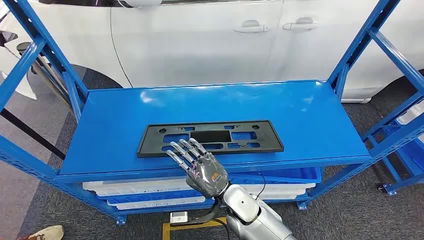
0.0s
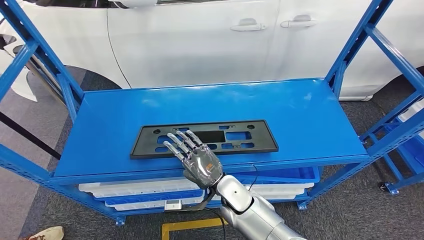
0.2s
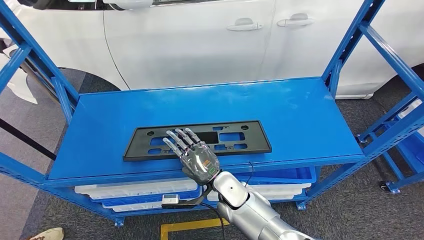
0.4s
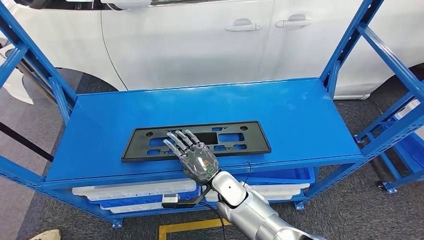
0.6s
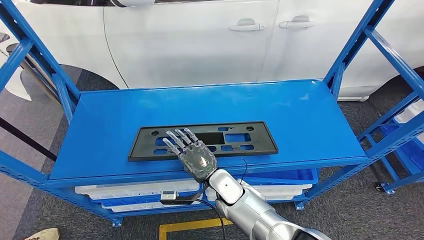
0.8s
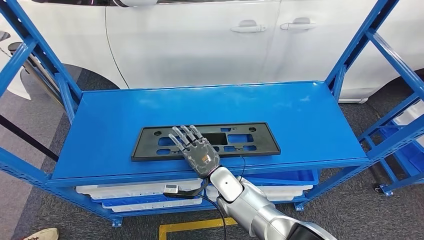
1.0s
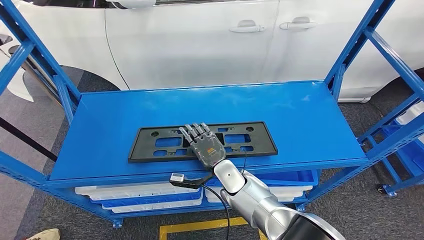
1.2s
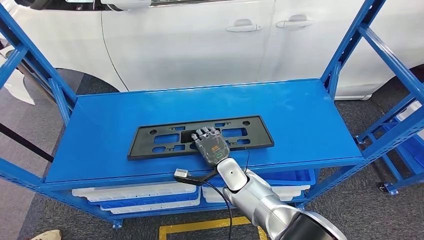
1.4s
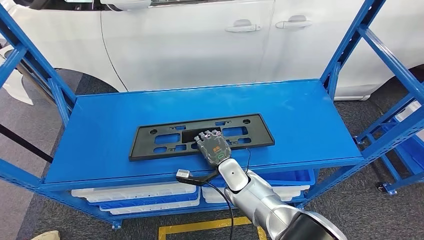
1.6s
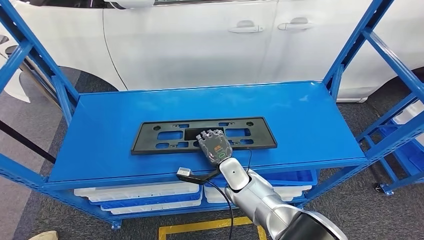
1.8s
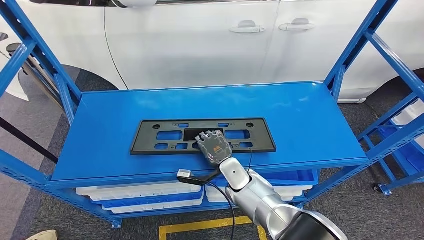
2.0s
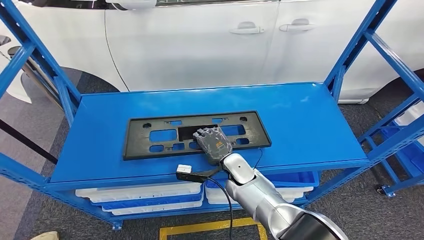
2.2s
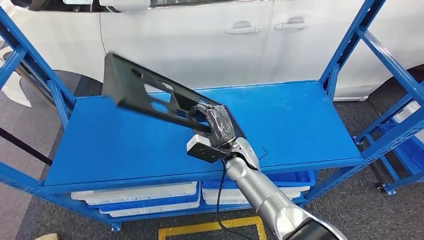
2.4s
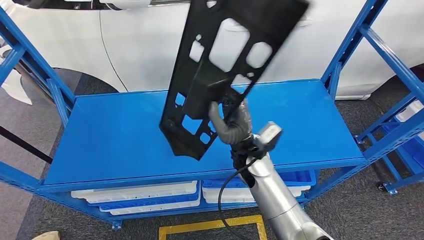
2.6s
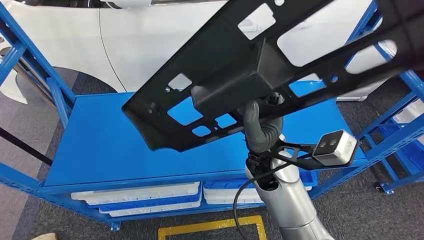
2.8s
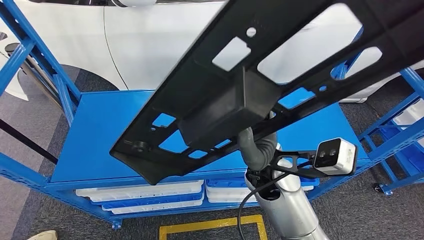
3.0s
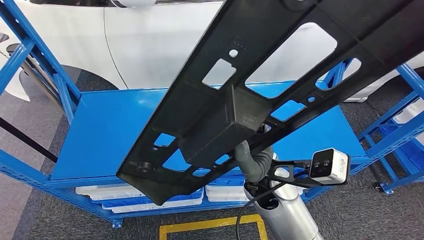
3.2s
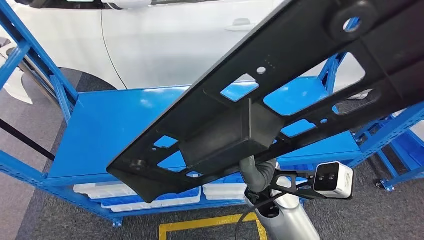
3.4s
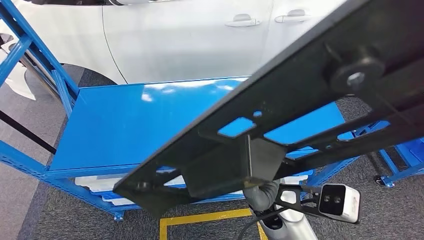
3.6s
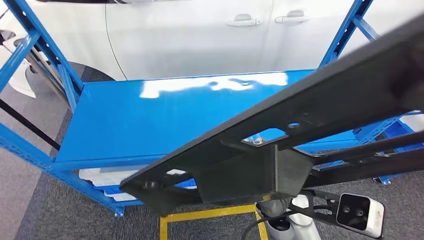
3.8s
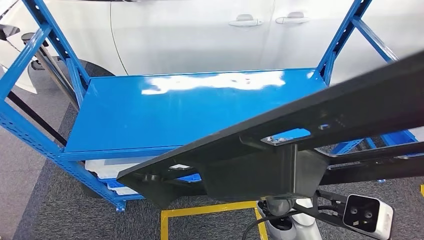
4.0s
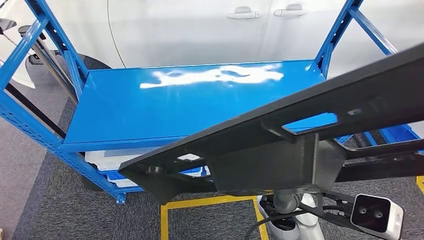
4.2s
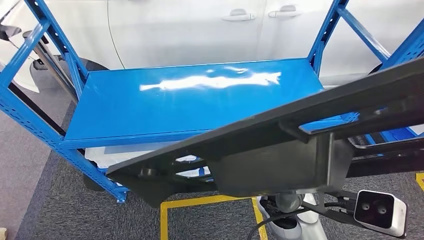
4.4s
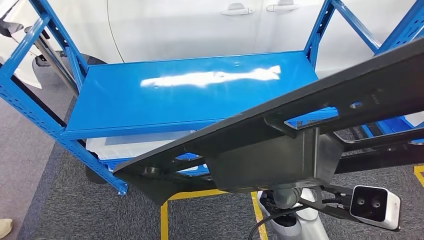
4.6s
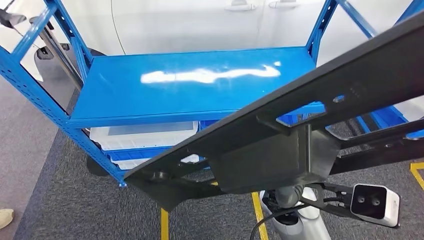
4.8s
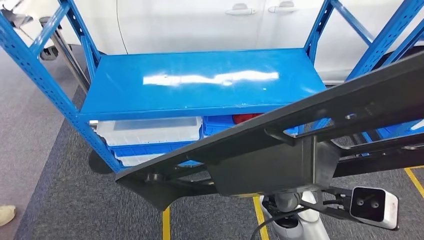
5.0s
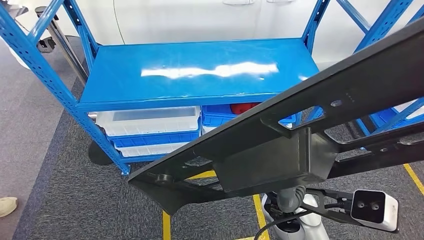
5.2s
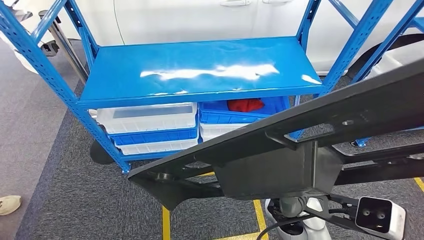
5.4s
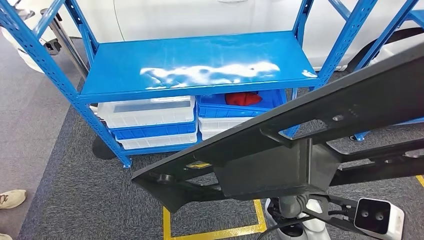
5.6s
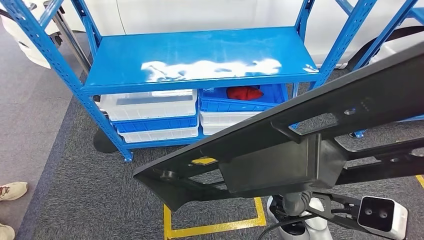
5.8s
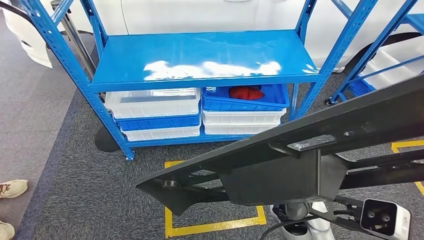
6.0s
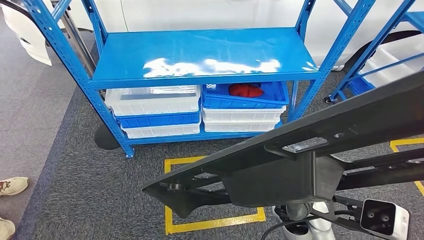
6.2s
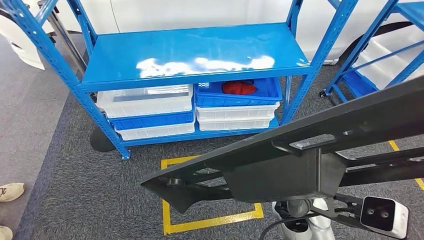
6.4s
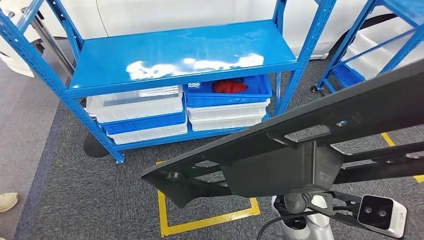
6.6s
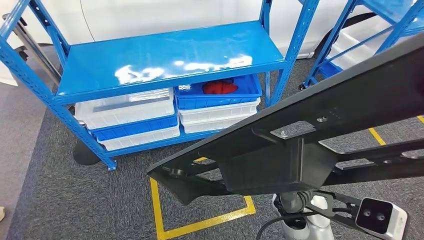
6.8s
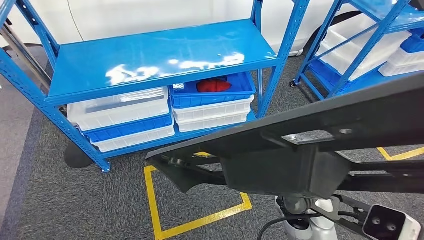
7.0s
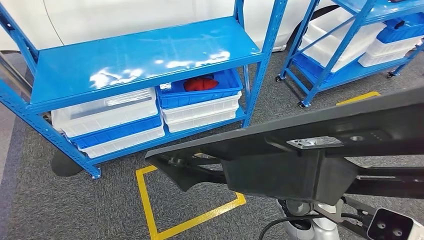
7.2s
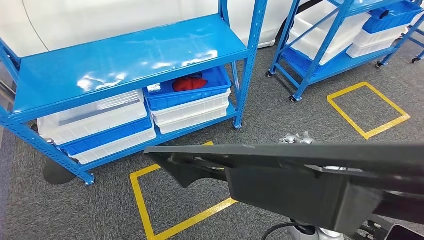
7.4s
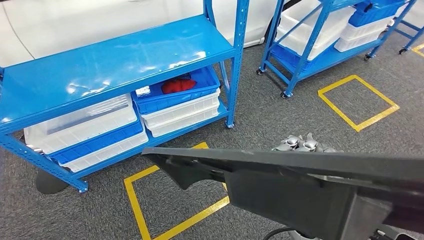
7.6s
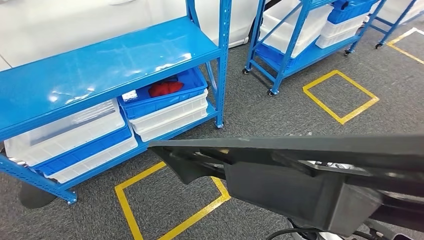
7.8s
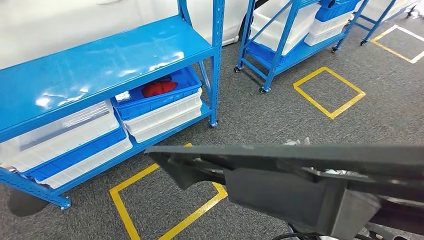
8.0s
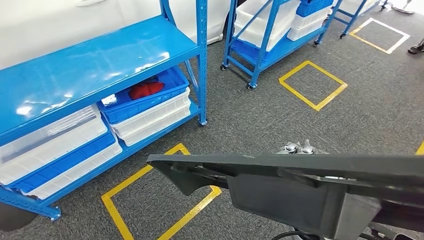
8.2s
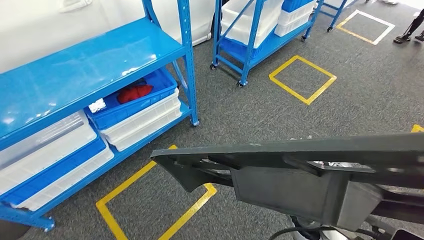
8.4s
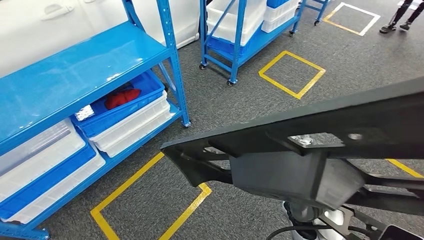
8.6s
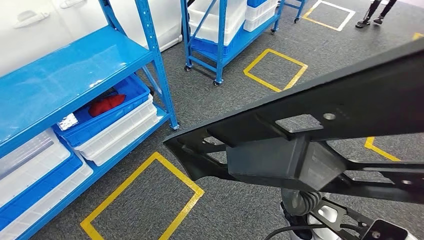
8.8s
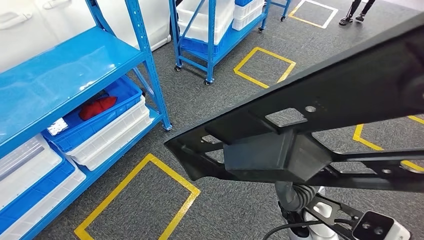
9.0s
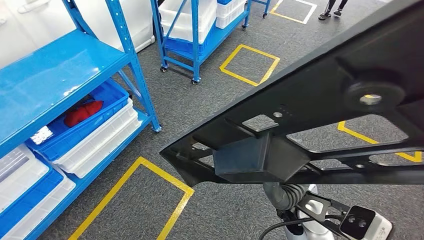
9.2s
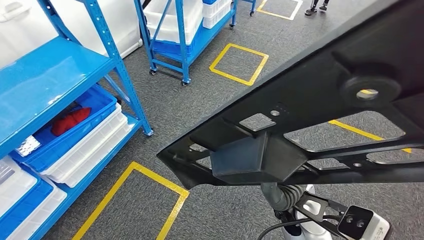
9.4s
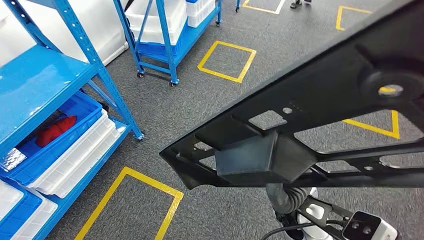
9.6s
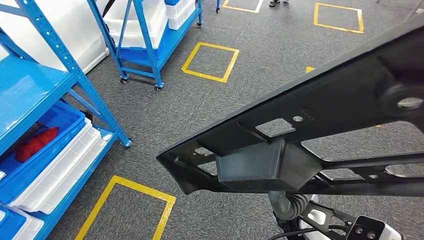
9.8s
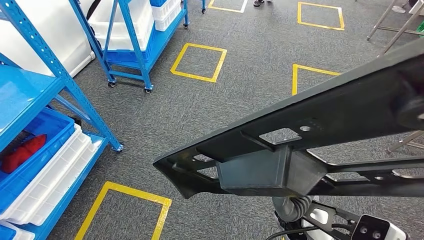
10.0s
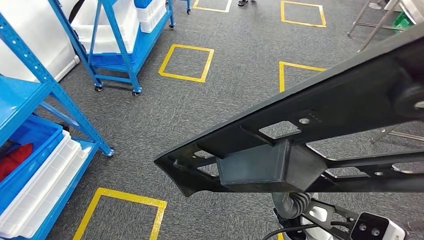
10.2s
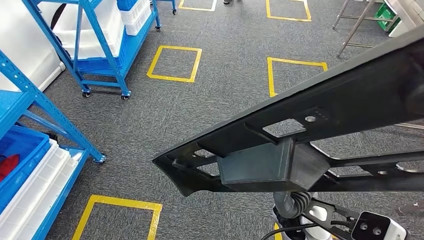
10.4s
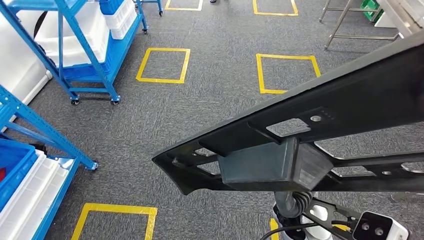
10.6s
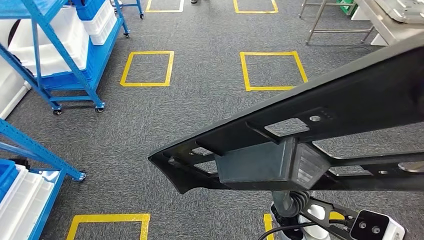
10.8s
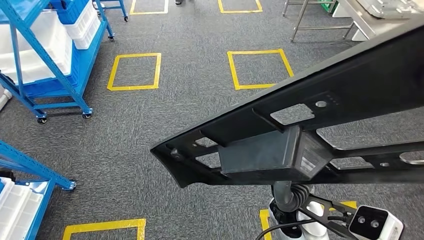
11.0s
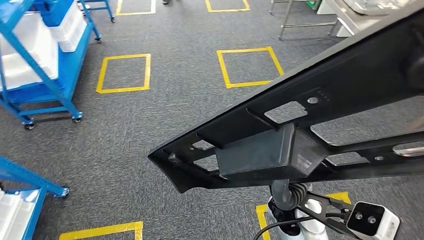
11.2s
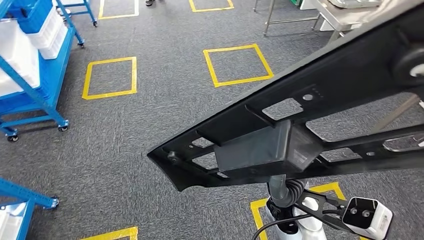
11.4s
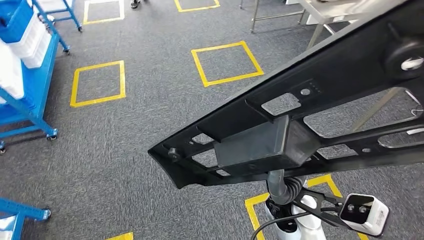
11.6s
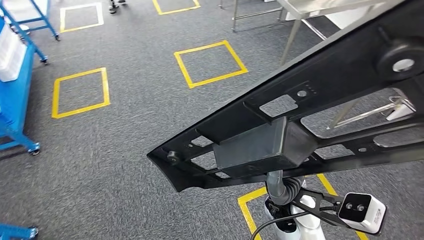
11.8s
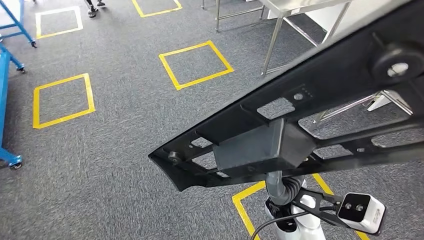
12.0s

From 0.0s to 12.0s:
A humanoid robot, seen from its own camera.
Step, from 0.0s to 2.8s: Pick up the large material from the shelf.

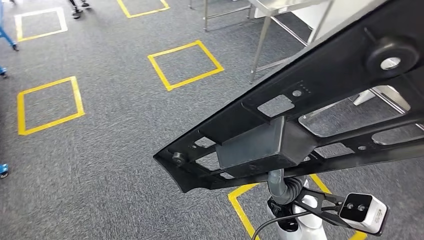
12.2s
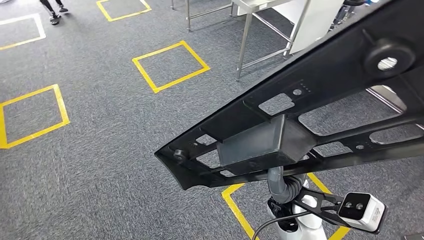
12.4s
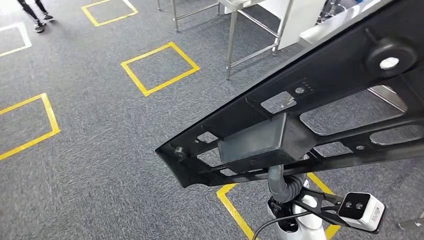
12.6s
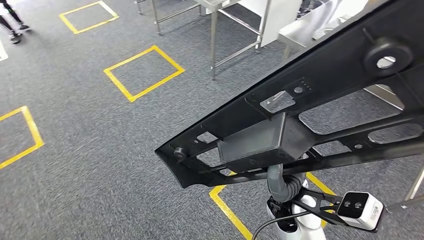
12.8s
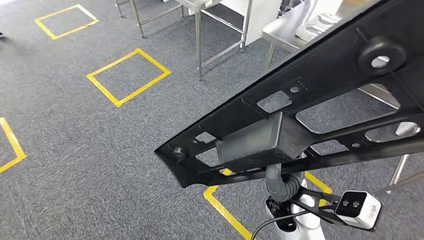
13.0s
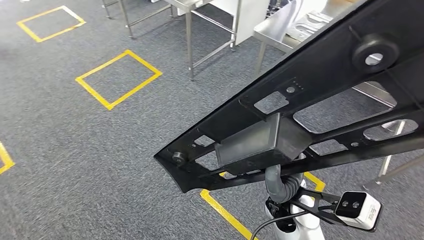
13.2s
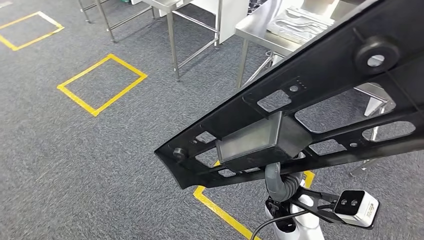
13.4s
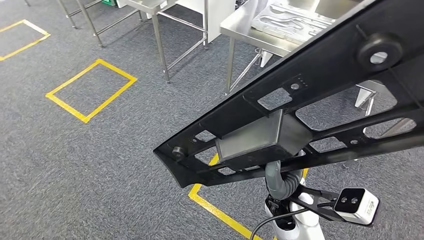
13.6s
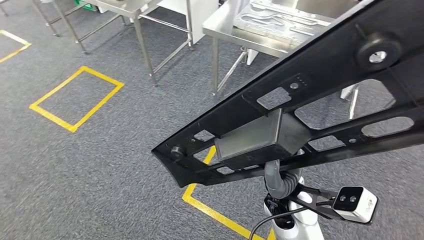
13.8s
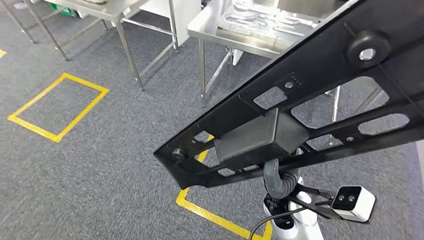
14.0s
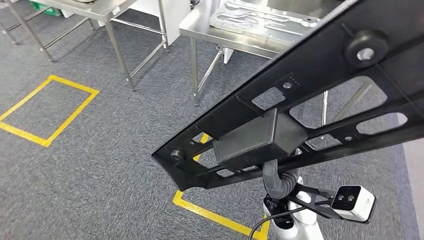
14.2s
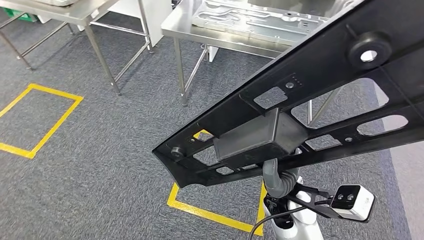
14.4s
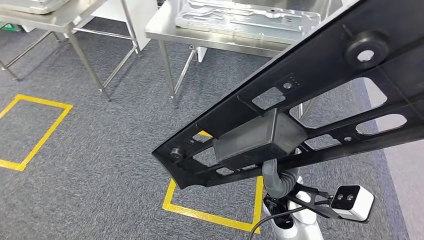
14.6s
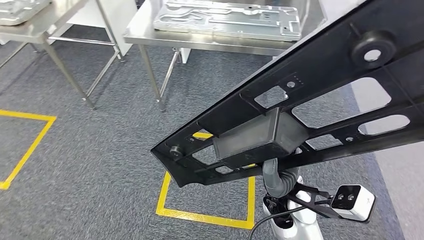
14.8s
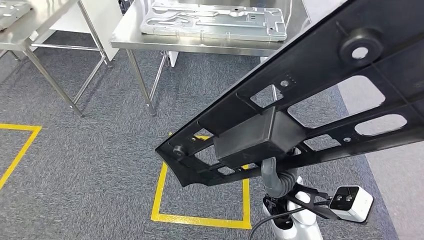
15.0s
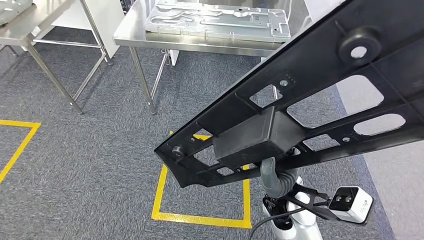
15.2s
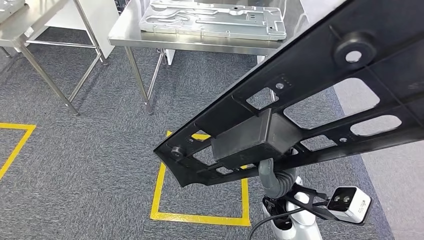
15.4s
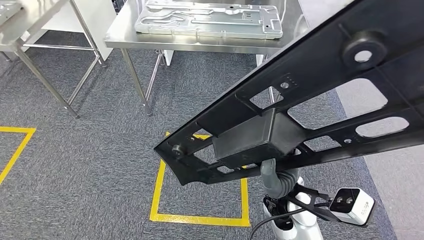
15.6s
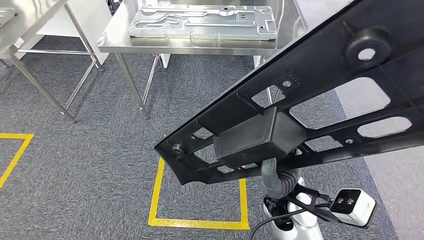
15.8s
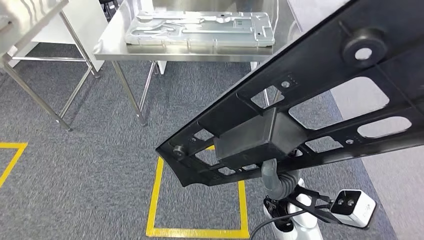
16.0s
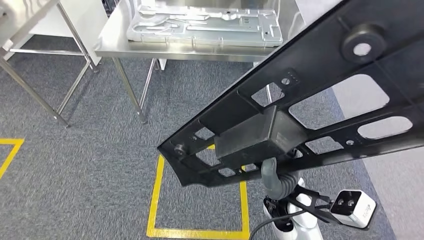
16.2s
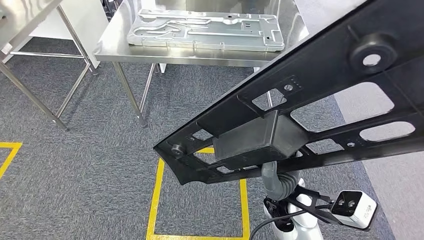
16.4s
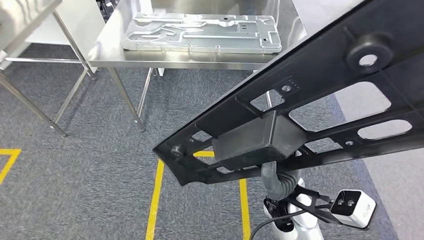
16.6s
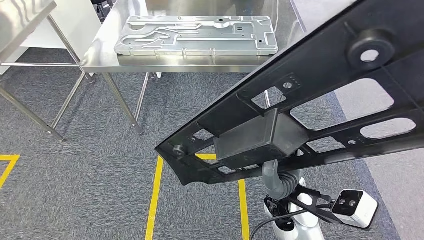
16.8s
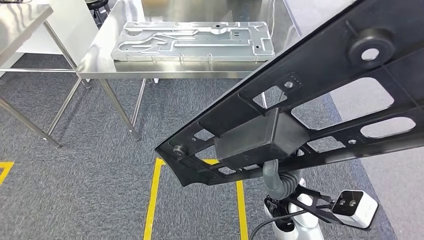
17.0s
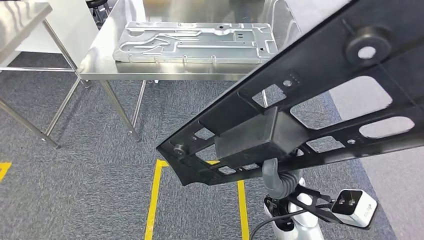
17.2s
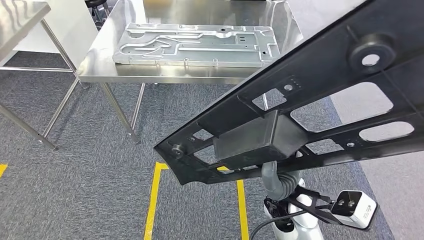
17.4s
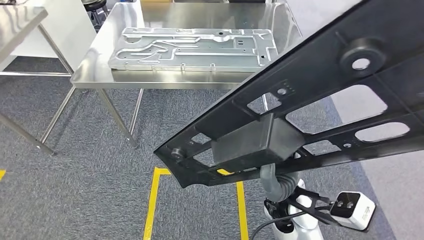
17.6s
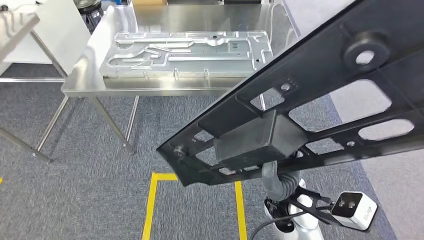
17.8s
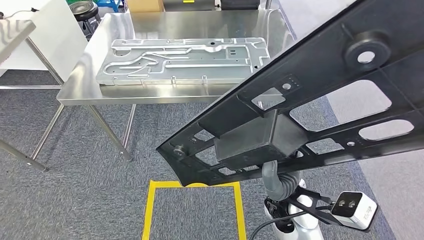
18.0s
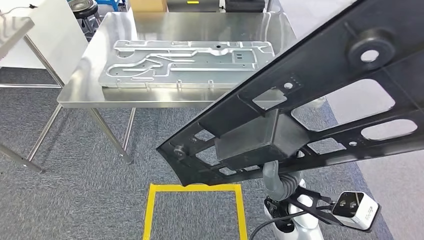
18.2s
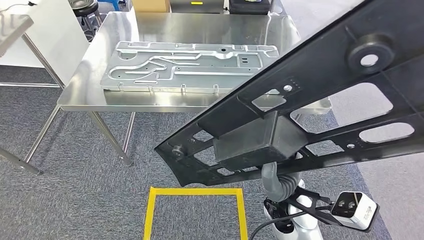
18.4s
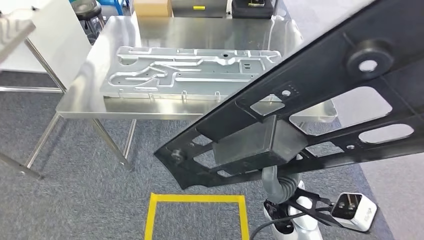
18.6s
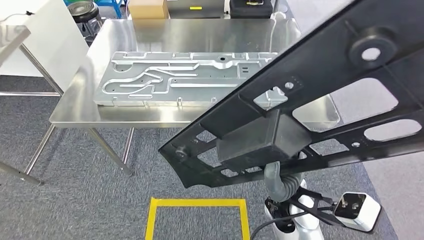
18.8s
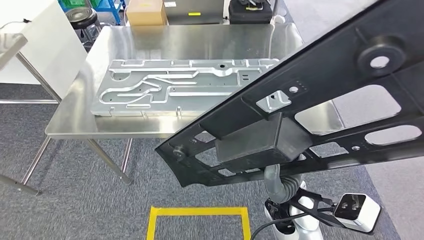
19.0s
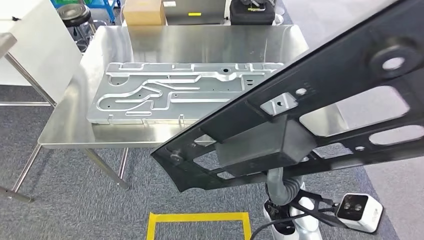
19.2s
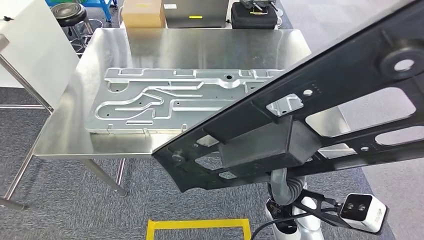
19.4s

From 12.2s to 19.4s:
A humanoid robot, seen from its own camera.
Step, from 12.2s to 18.6s: Move the large material to the workbench.
